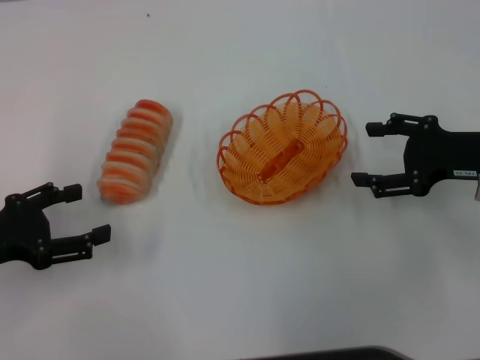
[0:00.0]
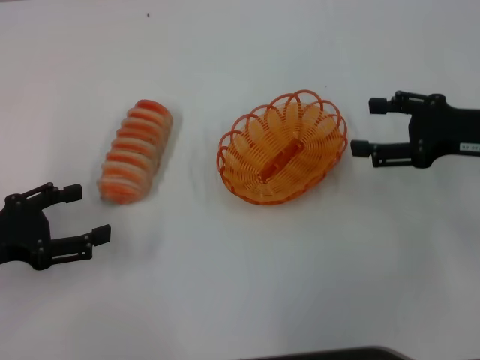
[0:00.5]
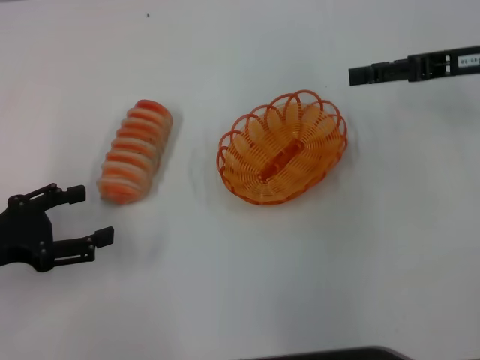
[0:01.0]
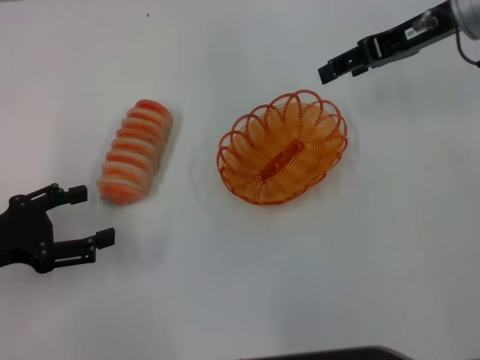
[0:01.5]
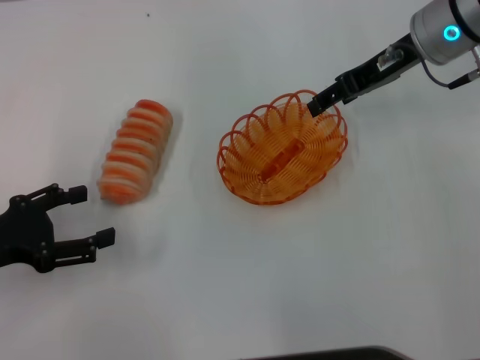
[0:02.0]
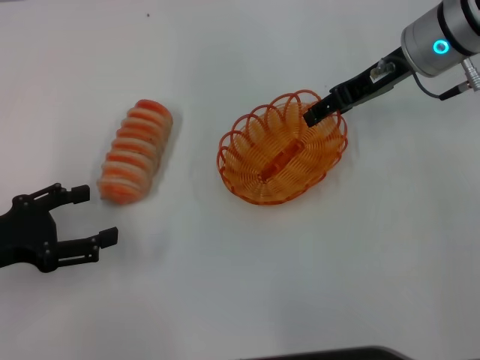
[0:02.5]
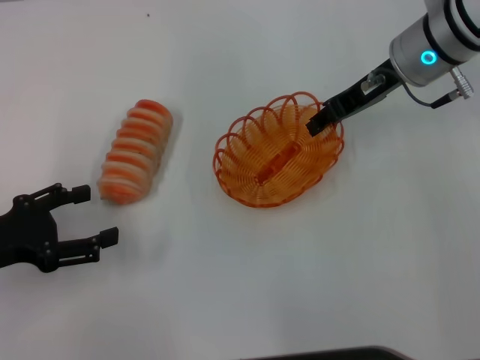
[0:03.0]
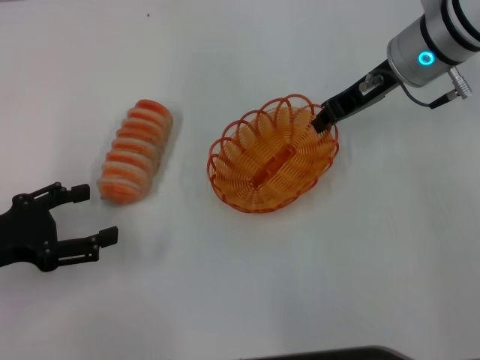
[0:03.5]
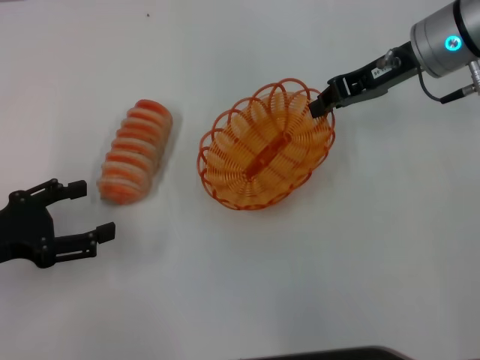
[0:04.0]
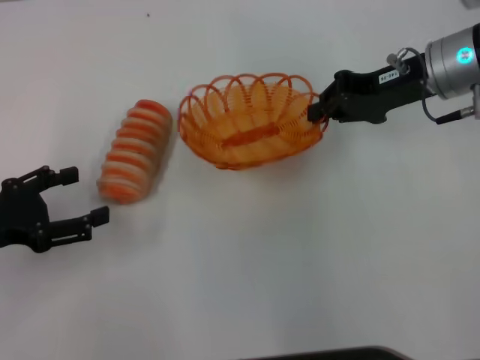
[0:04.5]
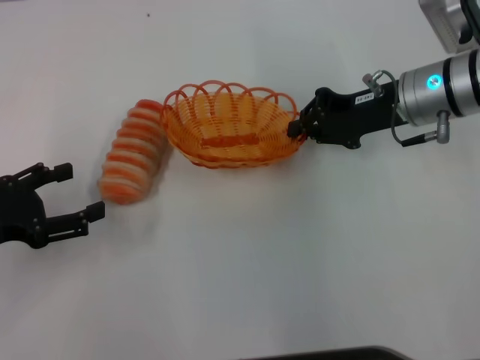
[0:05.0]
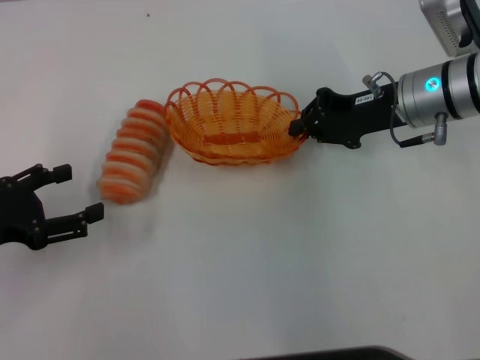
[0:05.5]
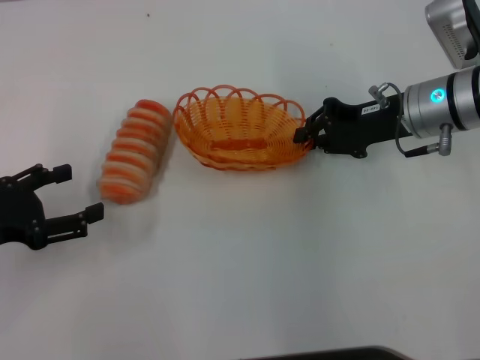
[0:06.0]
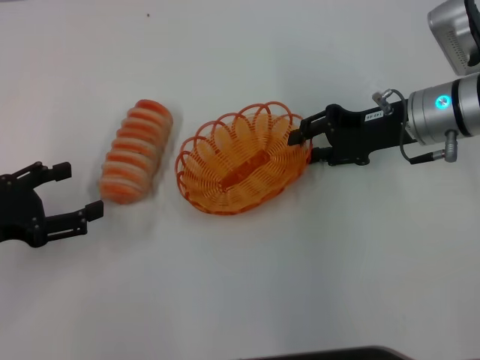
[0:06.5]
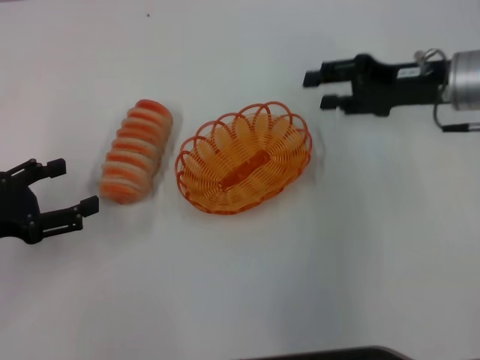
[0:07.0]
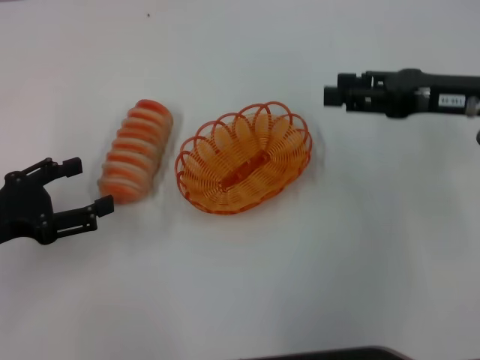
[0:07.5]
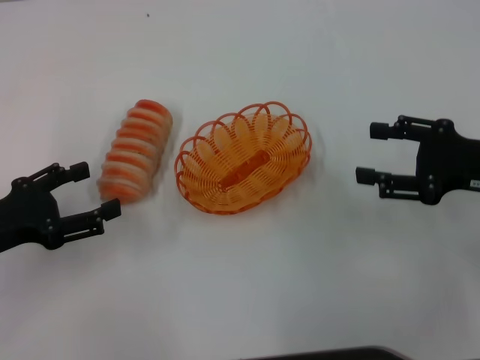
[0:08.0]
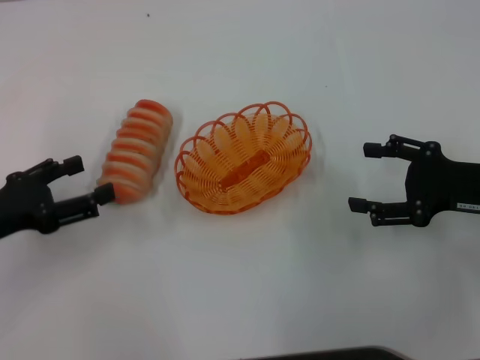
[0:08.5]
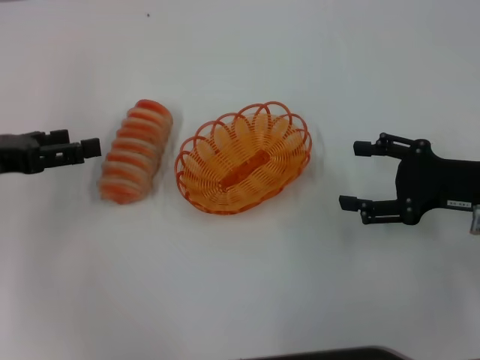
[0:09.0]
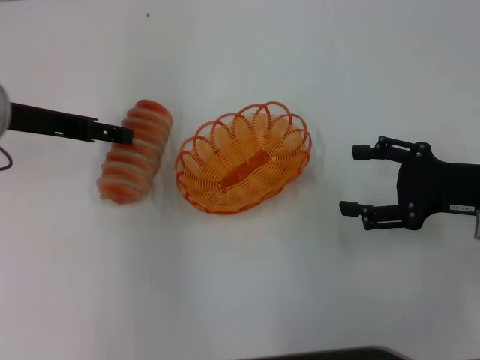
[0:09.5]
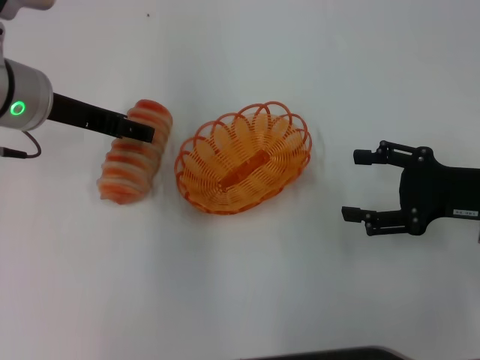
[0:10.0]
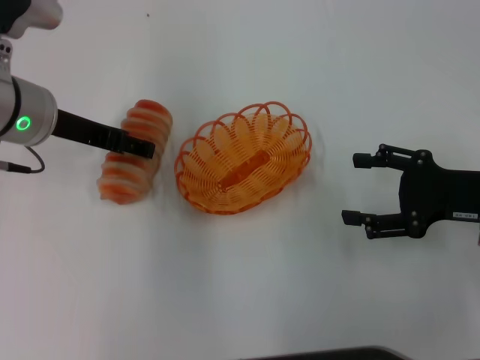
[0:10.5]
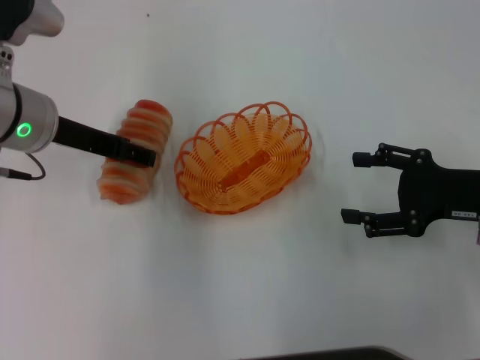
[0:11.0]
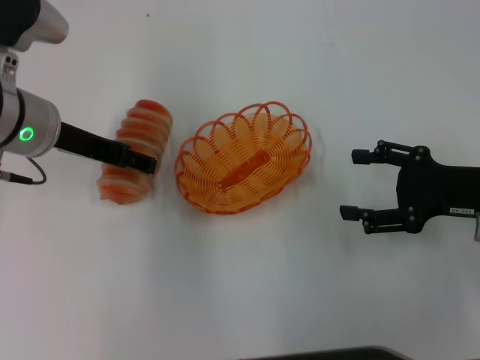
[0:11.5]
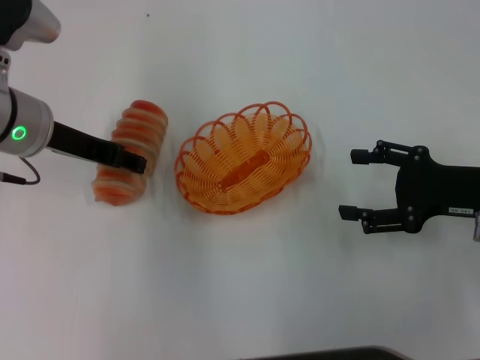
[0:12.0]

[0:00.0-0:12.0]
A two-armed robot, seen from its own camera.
Step, 0:00.0 to 0:04.0: Pick up the basket with the right gripper.
Step, 0:04.5 to 0:07.0: Place the basket in the center of view with the right gripper.
0:00.0 to 0:02.0: The right gripper moves forward, to the left and upward, approximately 15 cm.
0:02.0 to 0:04.0: The right gripper closes its fingers.
0:04.0 to 0:06.0: The right gripper heads downward, covering approximately 5 cm.
0:06.0 to 0:08.0: The right gripper moves backward and to the right, roughly 15 cm, and opens up.
0:08.0 to 0:10.0: The left gripper is displaced forward, to the right and upward by roughly 20 cm.
0:10.0 to 0:12.0: The grippers stay close to where they were, moving slightly.

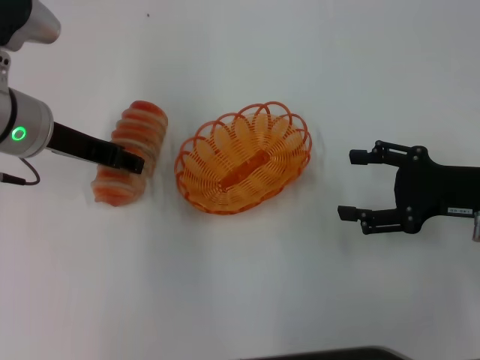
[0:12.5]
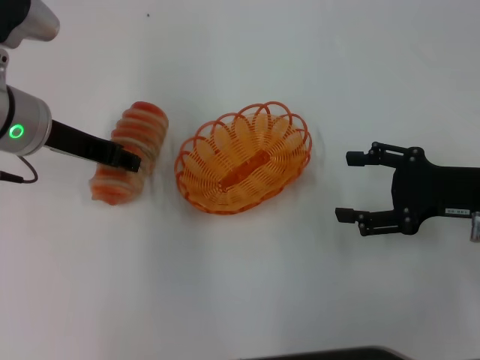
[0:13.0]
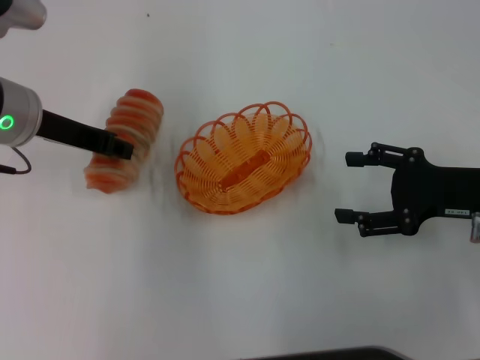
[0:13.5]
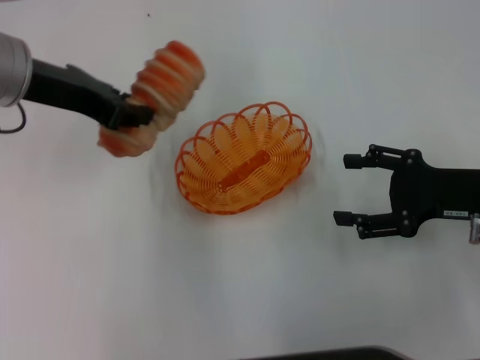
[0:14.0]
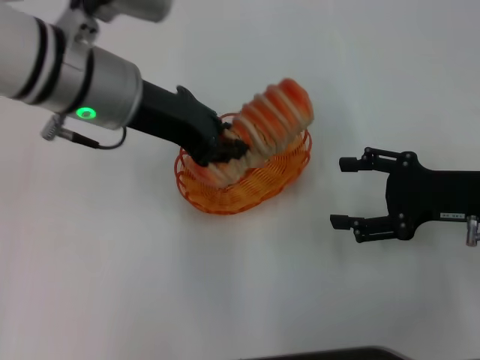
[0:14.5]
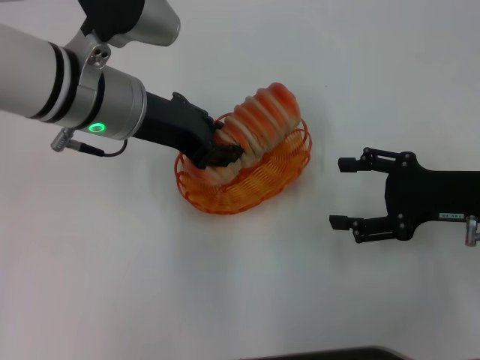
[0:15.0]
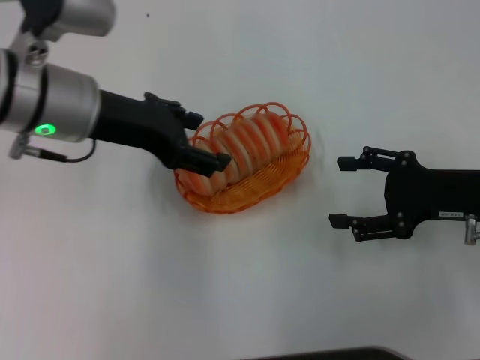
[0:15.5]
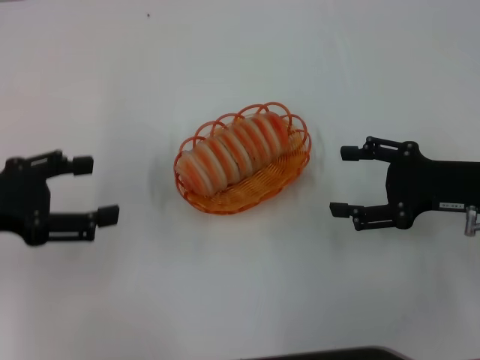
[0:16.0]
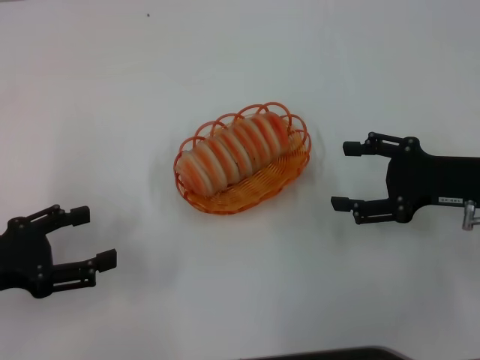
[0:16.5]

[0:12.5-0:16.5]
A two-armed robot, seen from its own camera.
Step, 0:14.0 to 0:15.5: Place the long bread into the basket with the left gripper.
0:12.5 to 0:14.5: The left gripper travels to the right by approximately 10 cm, and closes.
0:14.5 to 0:16.5: The left gripper travels to the left, backward and downward by some 25 cm, and opens its fingers.
